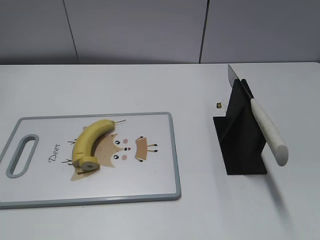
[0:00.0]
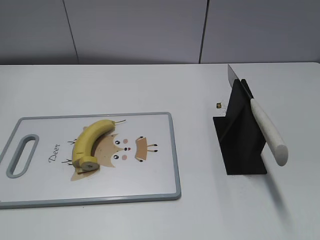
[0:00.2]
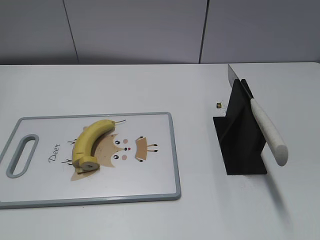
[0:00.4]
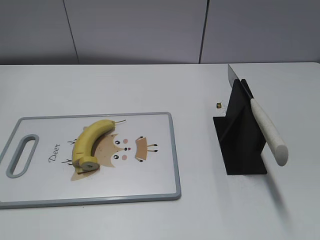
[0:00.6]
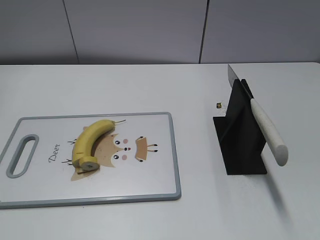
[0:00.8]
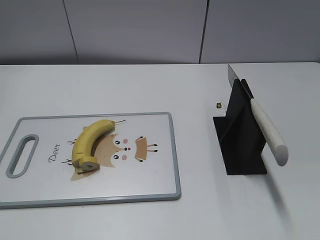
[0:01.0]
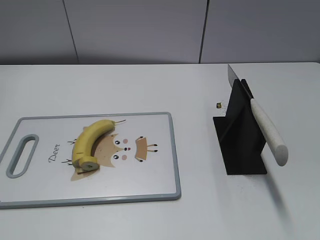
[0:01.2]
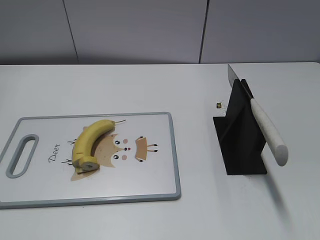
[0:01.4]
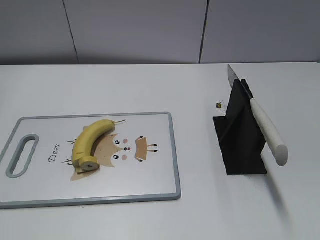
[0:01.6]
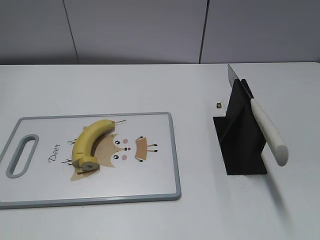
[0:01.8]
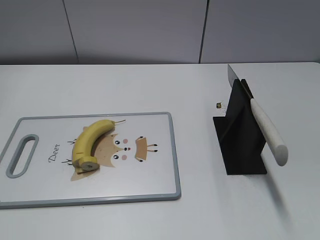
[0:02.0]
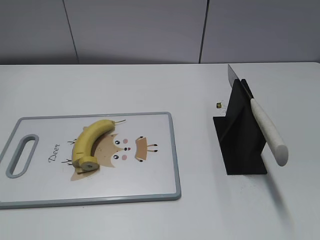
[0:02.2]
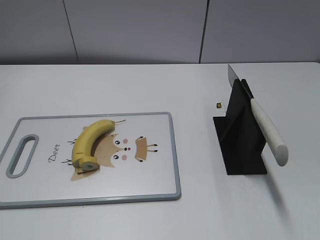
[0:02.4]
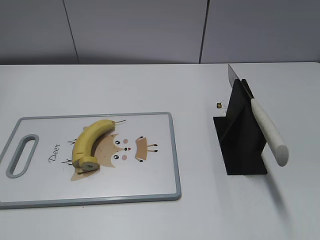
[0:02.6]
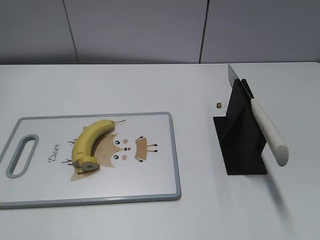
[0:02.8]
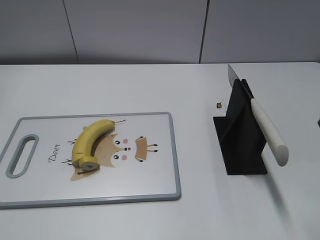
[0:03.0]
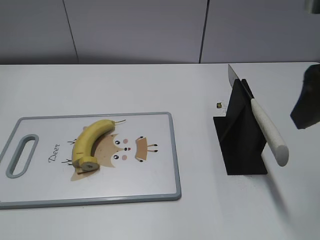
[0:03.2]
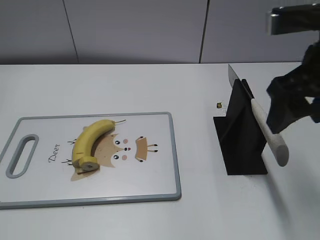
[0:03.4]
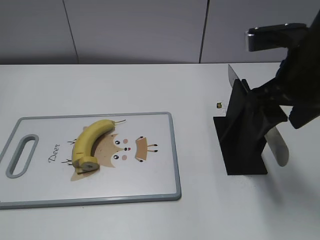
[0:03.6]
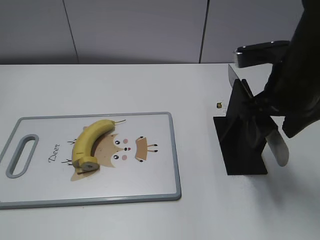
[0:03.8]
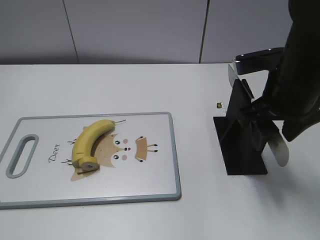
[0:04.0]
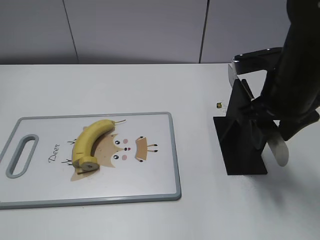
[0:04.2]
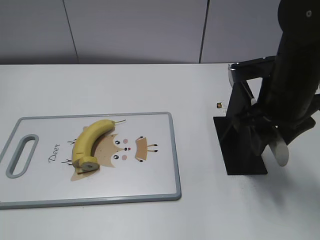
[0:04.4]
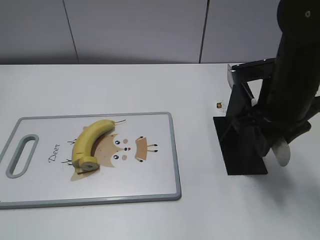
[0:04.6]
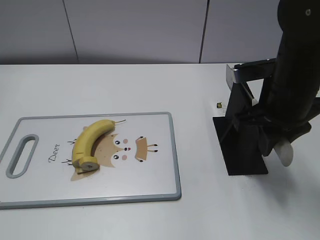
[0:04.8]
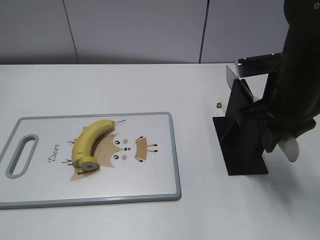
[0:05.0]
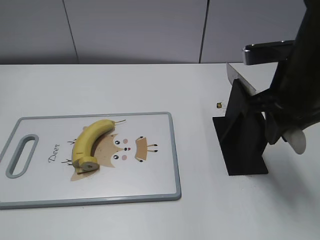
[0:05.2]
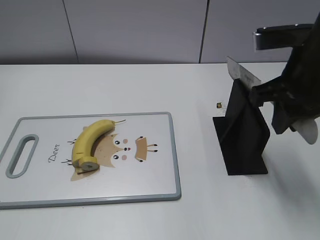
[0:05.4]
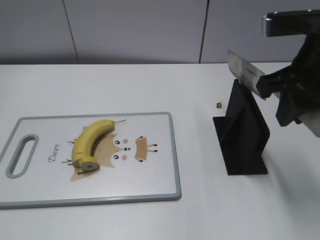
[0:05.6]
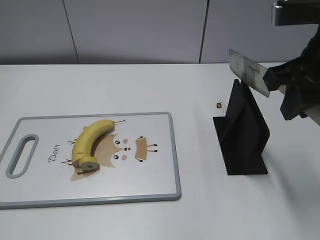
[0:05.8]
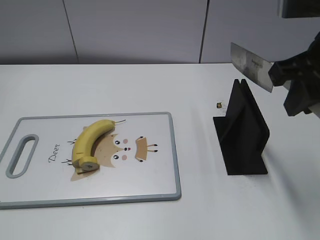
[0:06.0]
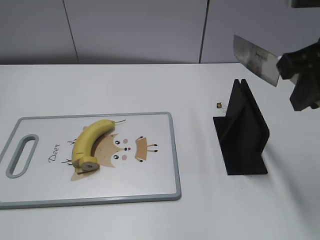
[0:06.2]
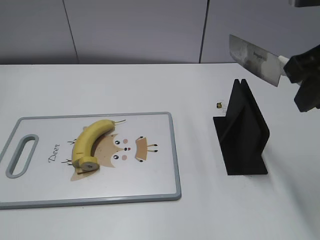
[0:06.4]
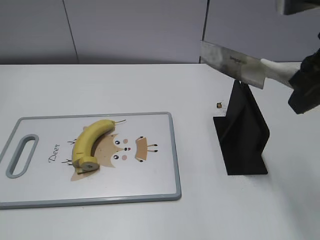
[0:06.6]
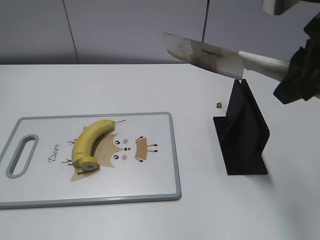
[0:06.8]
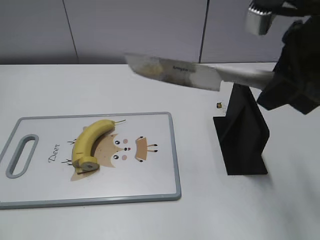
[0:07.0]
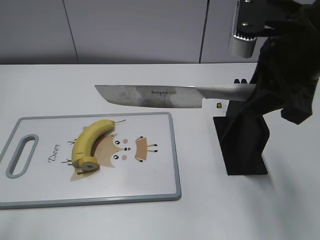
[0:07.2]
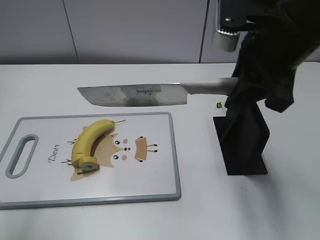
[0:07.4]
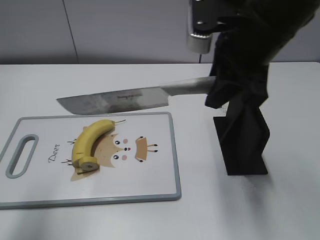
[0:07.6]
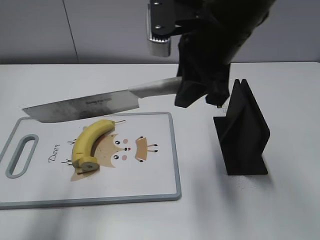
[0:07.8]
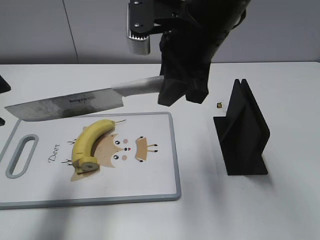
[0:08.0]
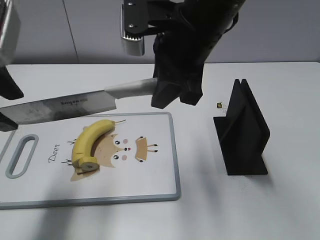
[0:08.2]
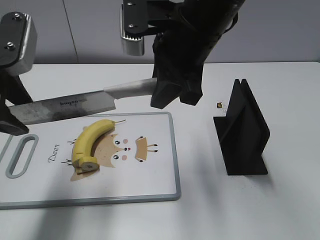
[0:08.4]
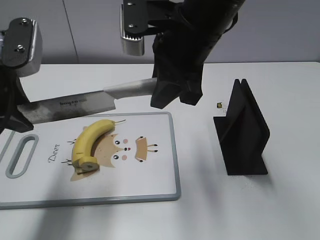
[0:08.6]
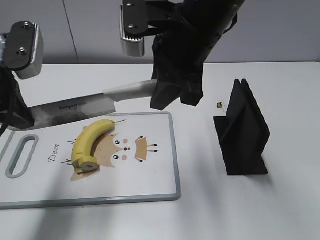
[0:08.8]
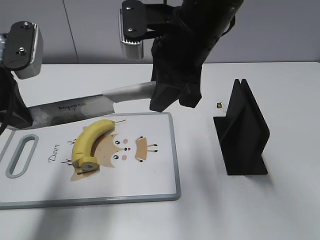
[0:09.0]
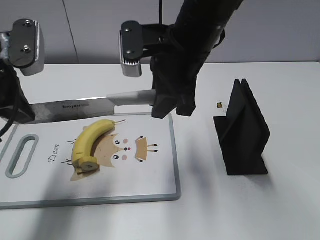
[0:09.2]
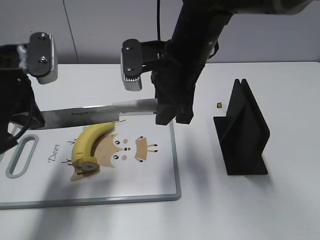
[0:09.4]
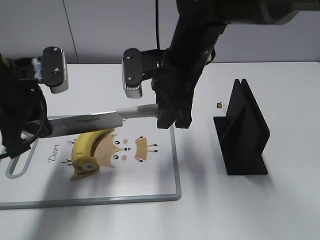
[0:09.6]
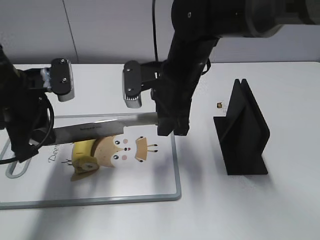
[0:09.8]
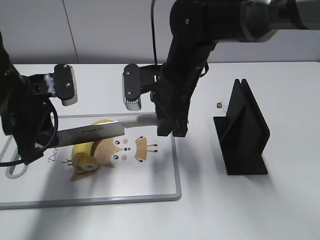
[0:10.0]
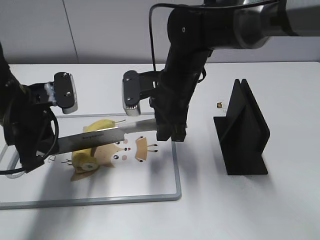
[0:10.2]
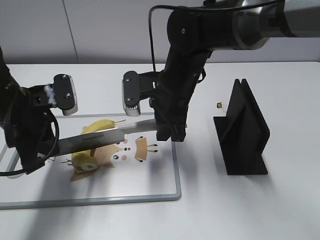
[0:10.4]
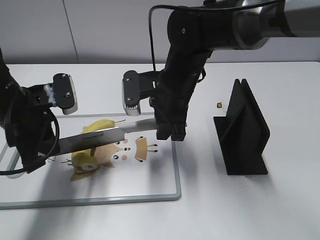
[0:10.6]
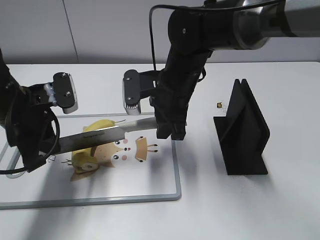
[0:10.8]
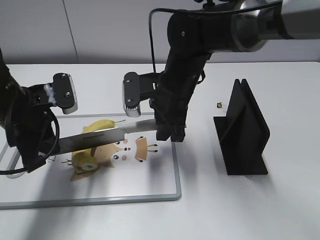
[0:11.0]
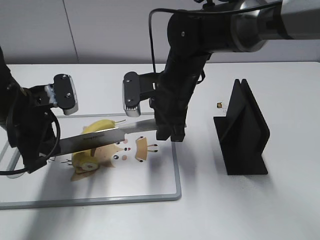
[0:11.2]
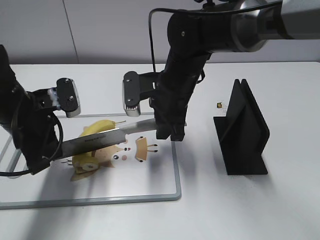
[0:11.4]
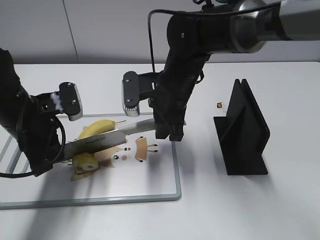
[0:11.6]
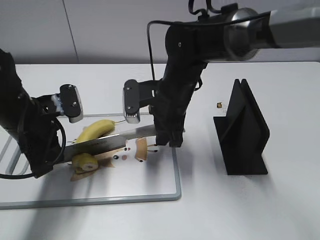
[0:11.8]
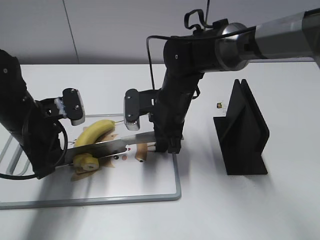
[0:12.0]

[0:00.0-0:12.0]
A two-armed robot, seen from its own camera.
Task of the whole recording: cut banana.
Step, 0:00.0 to 0:05.8: Grab the knife handle with your right hand.
Step, 0:06.0 to 0:11.2: Lift the knife with your right hand.
0:03.0 to 0:04.4: The right gripper goes some 20 cm downward, forward and to the left, and closes up.
0:04.4 to 0:06.0: The right gripper goes some 10 cm upward, and closes.
0:06.0 to 0:07.6: The right gripper moves to the left, roughly 5 cm; the left gripper is displaced forward and upward by approximately 20 cm.
0:07.6 to 0:09.0: The right gripper heads to the left, covering roughly 5 cm, while the left gripper is displaced forward, downward and to the right by approximately 15 cm, and closes.
0:09.0 to 0:10.4: The grippers both shift downward by roughly 10 cm.
0:10.4 to 0:12.0: The right gripper is displaced downward by about 5 cm.

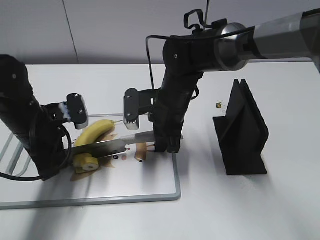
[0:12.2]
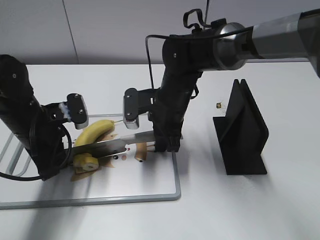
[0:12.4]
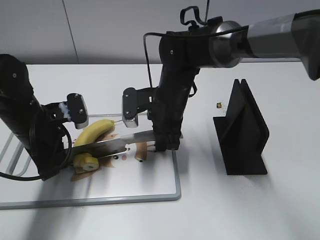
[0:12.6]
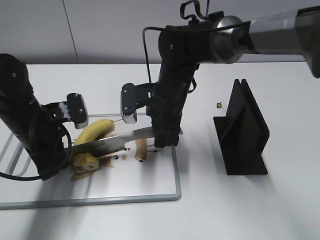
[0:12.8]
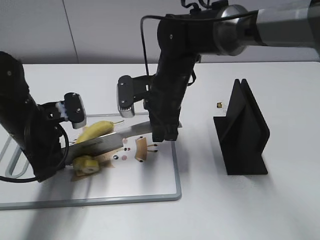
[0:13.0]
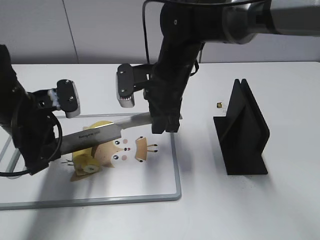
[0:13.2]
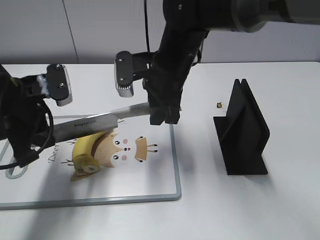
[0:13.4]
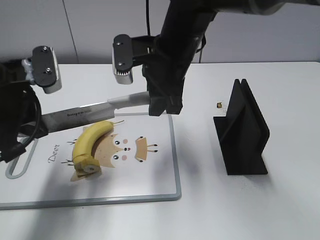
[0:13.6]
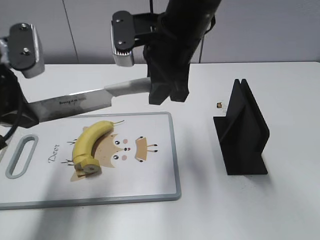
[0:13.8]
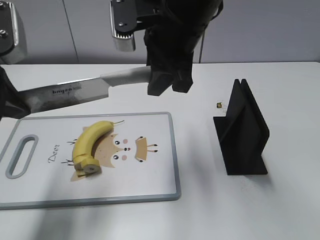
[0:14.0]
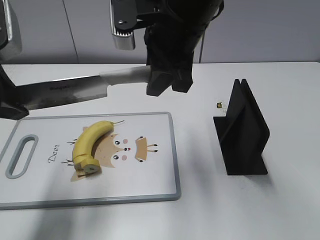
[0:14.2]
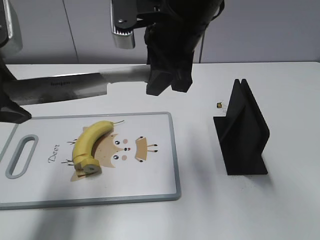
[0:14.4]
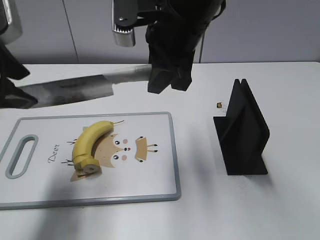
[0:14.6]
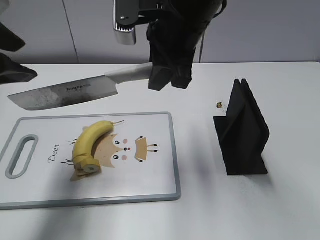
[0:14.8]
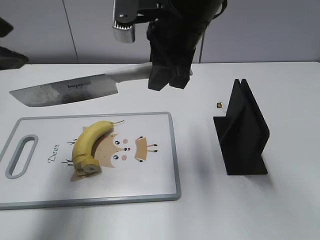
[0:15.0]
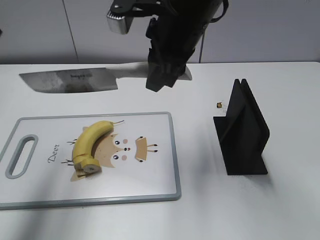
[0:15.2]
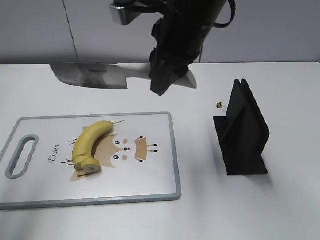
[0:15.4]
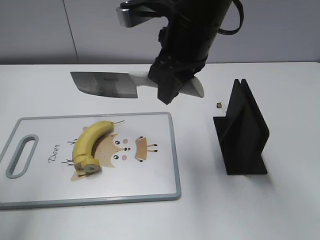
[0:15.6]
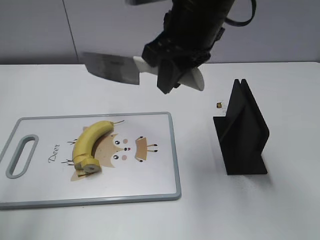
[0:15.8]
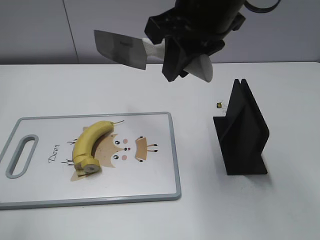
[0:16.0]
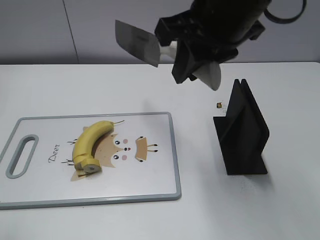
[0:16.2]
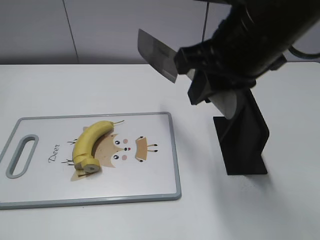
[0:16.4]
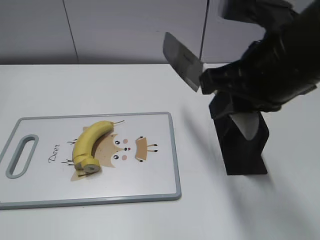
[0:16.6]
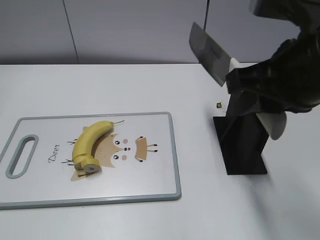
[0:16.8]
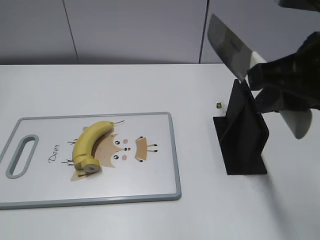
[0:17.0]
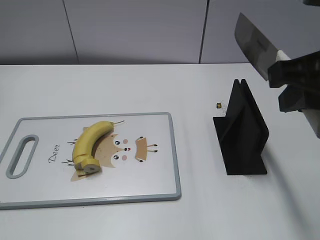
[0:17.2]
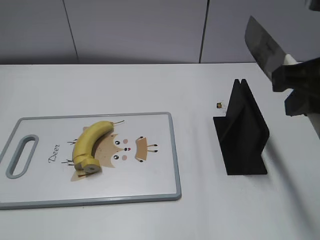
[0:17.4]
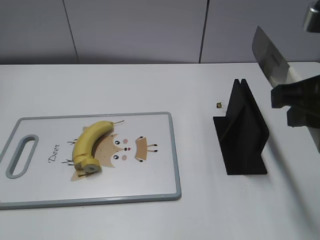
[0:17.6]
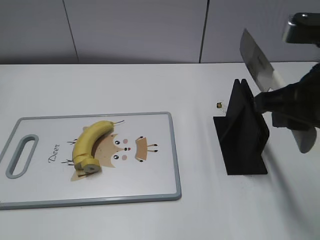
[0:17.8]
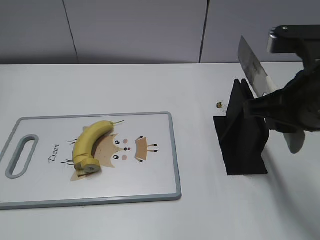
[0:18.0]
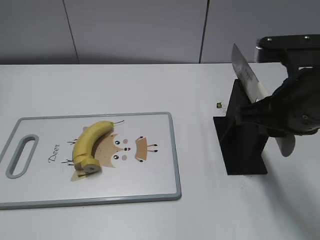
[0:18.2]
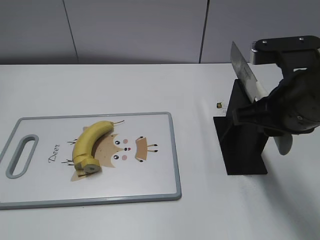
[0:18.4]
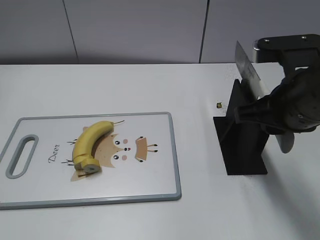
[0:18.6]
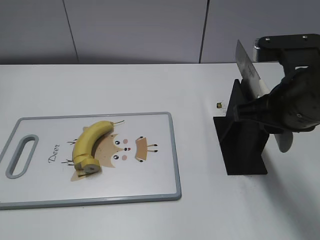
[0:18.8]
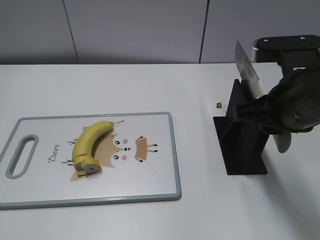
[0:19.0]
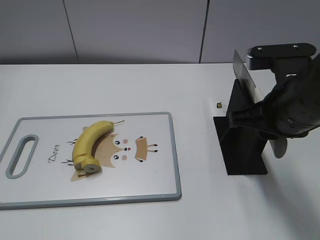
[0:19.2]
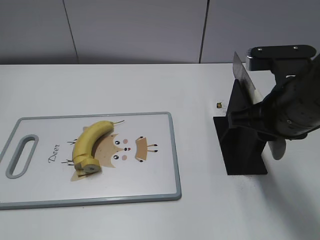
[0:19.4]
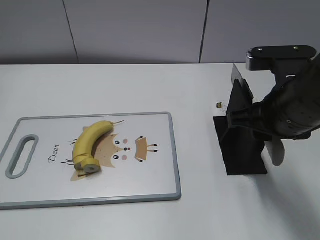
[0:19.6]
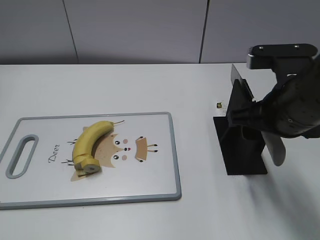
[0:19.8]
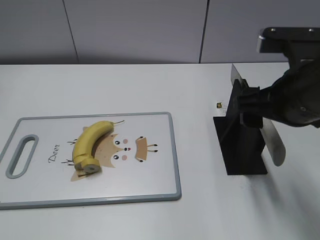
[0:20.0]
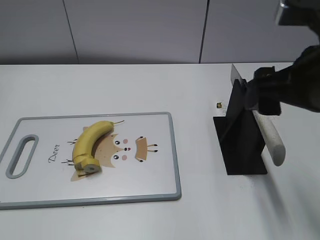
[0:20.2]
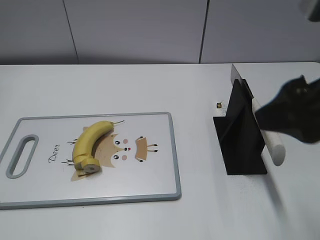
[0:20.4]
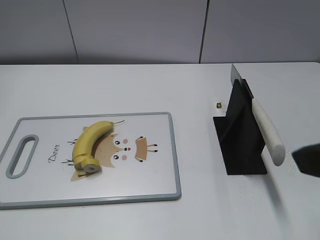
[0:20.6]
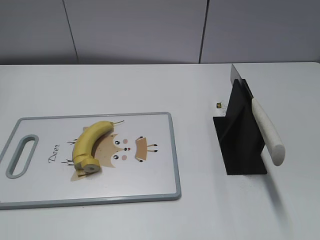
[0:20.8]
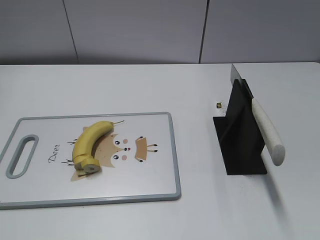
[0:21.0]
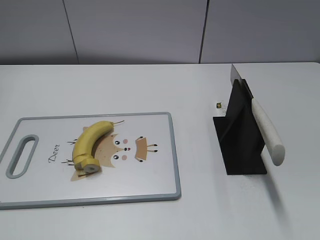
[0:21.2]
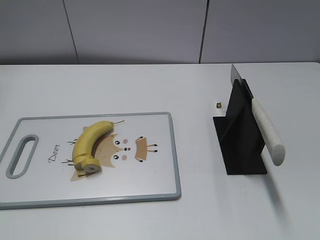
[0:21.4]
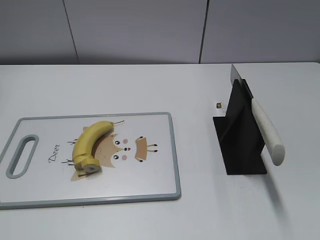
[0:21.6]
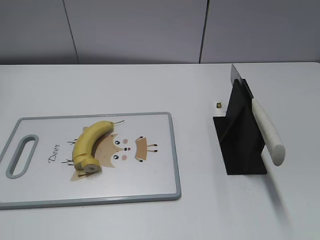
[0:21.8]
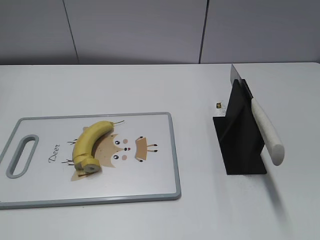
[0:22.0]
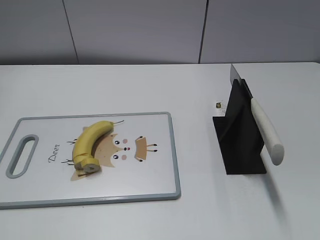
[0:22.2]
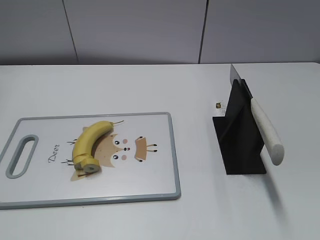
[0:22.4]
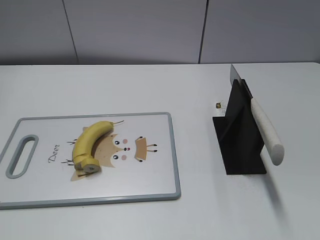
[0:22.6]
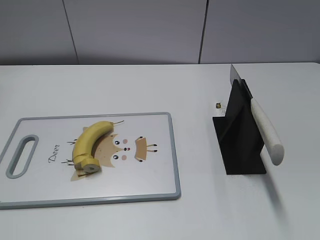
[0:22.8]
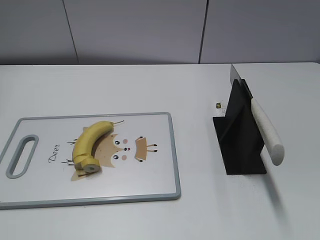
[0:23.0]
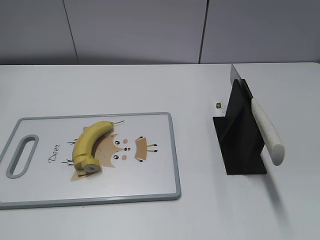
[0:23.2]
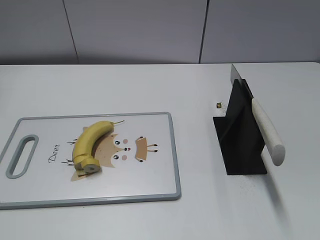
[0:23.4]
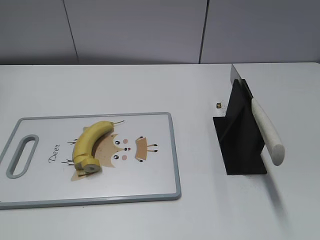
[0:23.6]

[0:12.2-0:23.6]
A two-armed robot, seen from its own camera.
Task of the whole recording: cut banana.
Step, 0:12.2 to 0:15.8: Cut the banana with your right hand.
Step, 0:16.0 to 0:17.4: Lift the knife with your right hand.
Step, 0:17.6 to 0:23.6: Place the knife on the storage rack with your right hand.
0:12.2 to 0:13.6: Both grippers move upward, about 10 cm.
0:13.6 to 0:15.0: The right gripper is displaced upward by roughly 5 cm; the left gripper is displaced upward by roughly 10 cm, and opens up.
0:15.0 to 0:16.4: The right gripper moves backward and to the right, some 10 cm. Meanwhile the left gripper heads backward and to the left, covering some 15 cm.
0:16.4 to 0:17.8: The left gripper shifts some 5 cm backward, while the right gripper goes roughly 10 cm to the right and backward.
0:17.8 to 0:19.4: The right gripper travels downward by roughly 5 cm.
0:19.4 to 0:20.8: The right gripper heads backward, upward and to the right, covering some 20 cm, and opens up.
